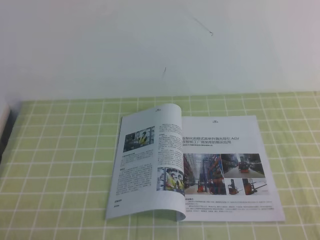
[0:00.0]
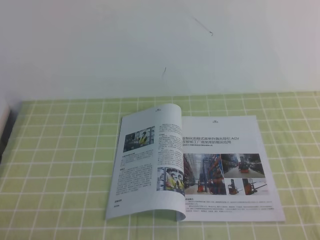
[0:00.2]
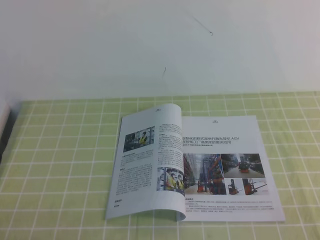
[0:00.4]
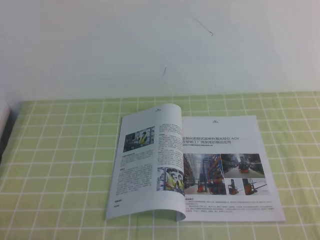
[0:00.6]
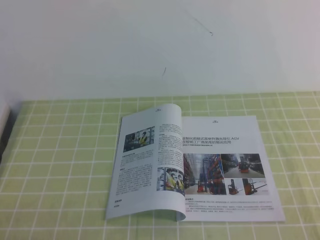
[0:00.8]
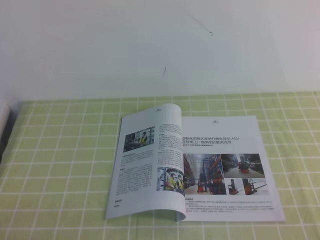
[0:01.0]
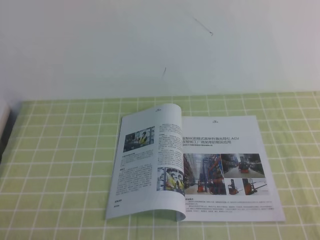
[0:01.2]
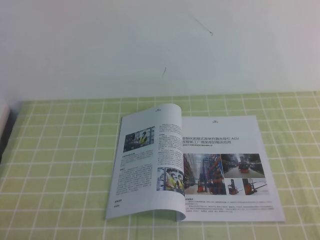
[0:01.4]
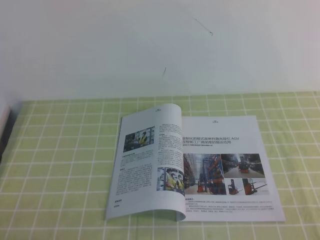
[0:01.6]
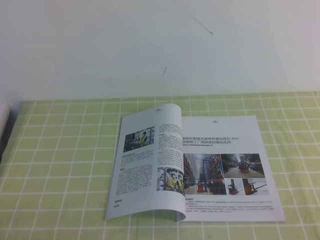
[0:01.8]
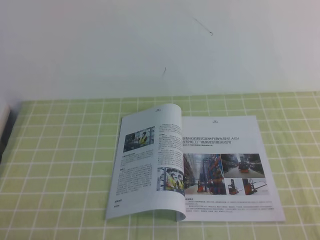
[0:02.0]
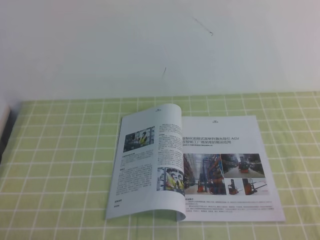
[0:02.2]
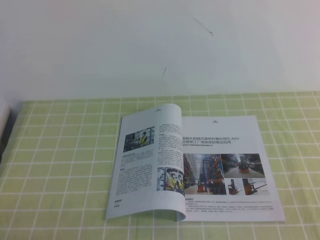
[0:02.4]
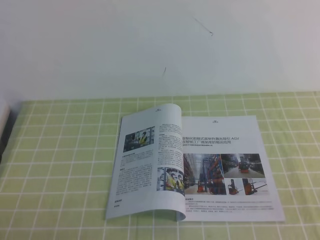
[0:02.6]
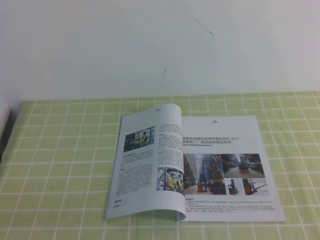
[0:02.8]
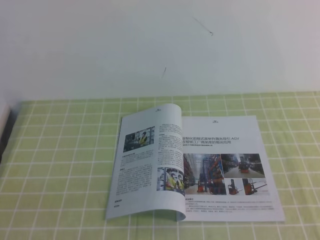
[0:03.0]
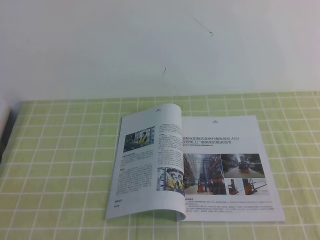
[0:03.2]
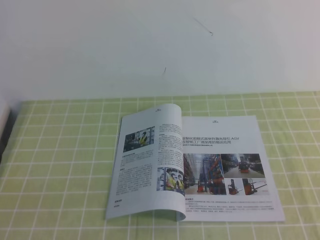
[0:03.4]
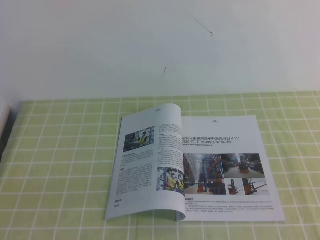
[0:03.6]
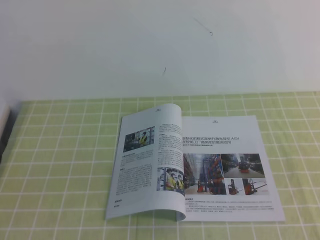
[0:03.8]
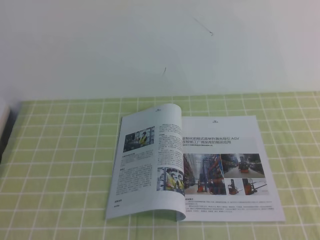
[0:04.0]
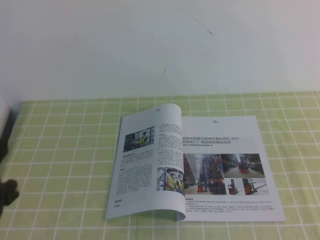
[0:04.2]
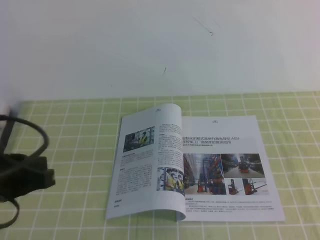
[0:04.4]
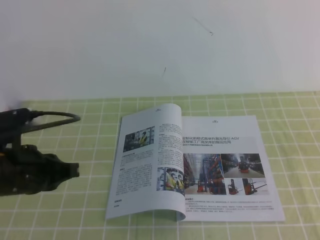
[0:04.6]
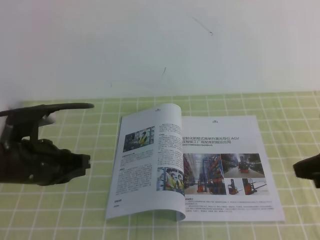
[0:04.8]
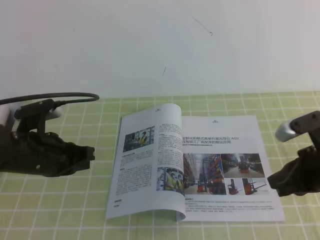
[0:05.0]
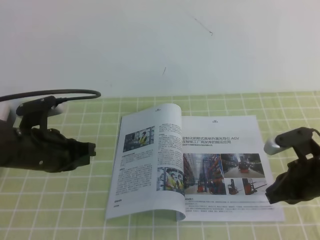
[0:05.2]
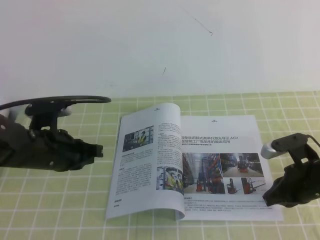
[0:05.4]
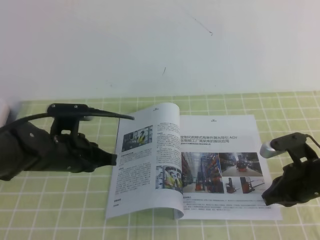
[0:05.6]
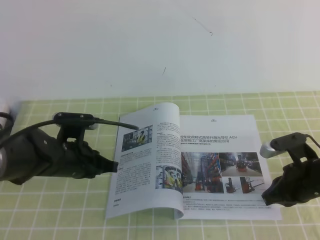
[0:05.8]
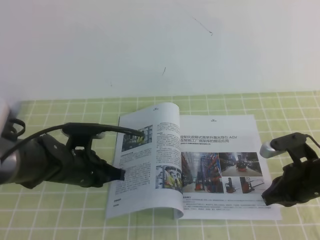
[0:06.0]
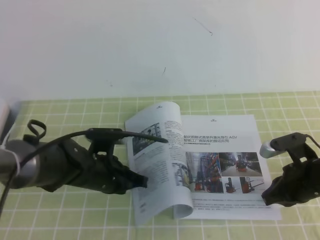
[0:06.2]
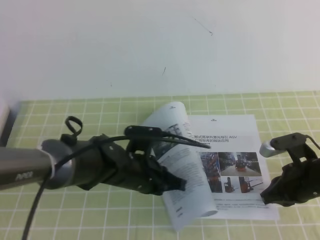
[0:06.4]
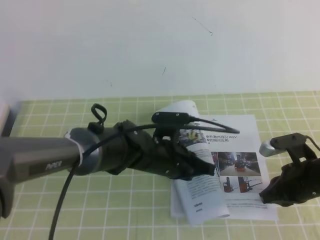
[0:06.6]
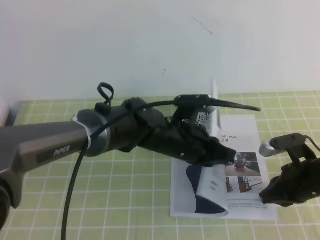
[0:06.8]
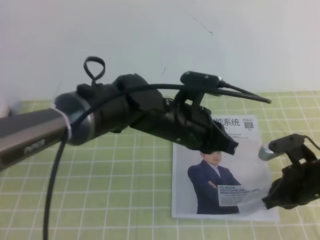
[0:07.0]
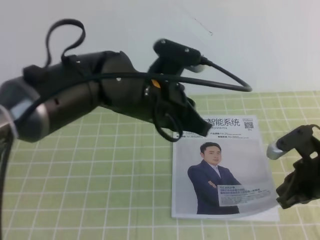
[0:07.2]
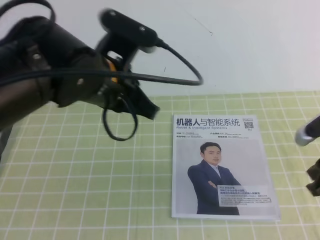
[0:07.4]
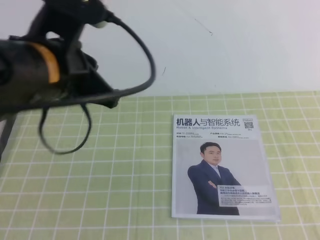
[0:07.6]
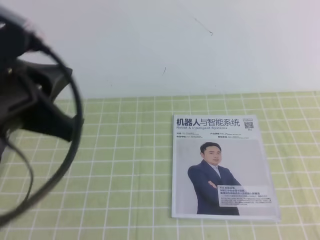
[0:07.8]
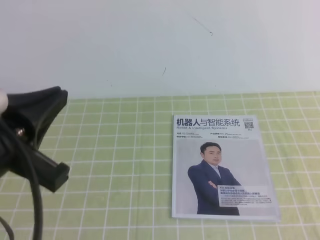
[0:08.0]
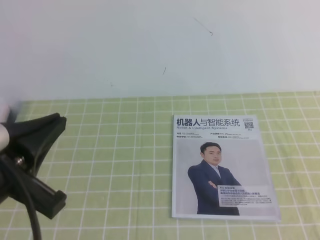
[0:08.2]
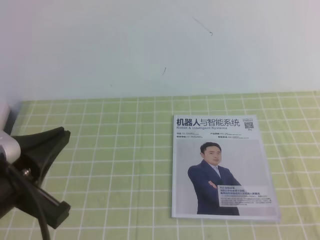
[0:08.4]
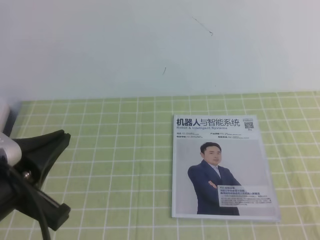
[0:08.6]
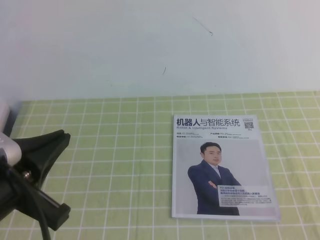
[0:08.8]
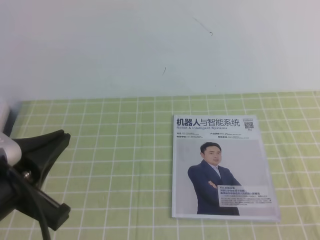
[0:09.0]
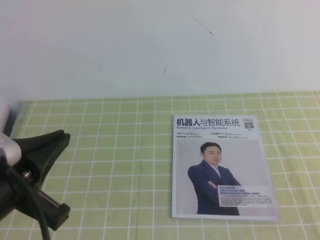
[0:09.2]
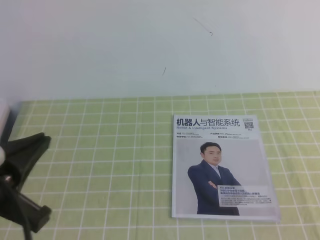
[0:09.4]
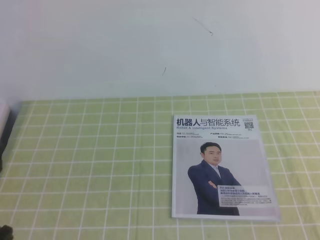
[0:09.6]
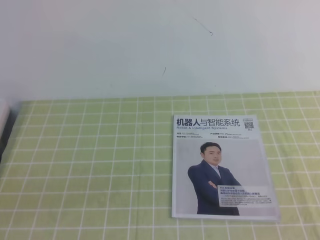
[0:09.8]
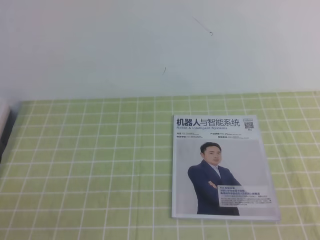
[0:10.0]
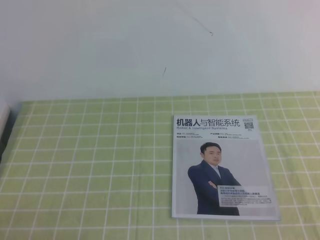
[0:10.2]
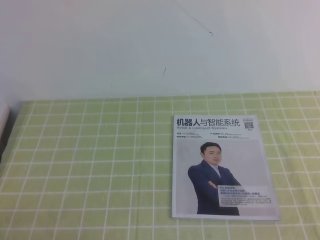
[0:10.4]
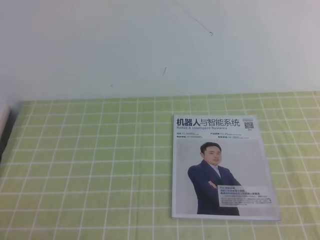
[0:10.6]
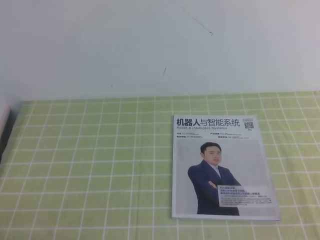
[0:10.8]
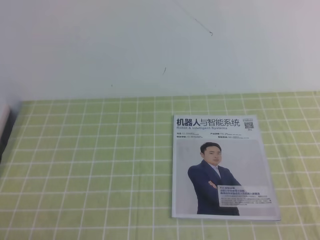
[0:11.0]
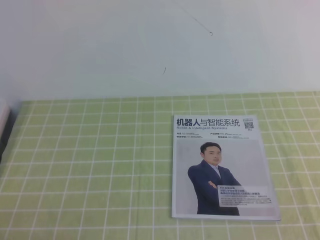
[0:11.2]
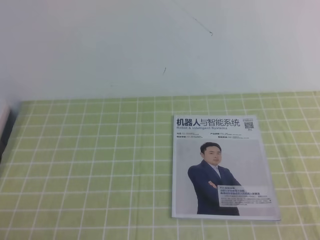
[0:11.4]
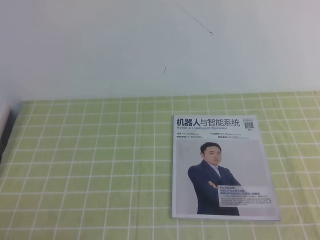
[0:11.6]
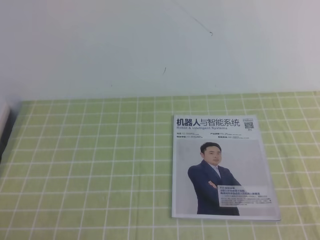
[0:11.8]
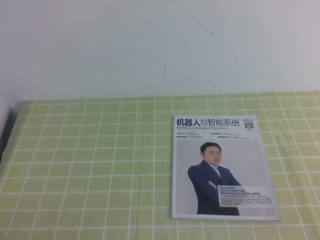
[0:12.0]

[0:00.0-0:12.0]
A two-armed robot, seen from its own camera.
Task of the whole recording: on the green tablecloth, hold the book with one hand and close it with the other.
0:00.0 to 0:01.6: Neither gripper changes place.
0:03.0 to 0:04.4: The left gripper goes roughly 15 cm forward and upward.
0:04.4 to 0:06.0: The left gripper shifts some 20 cm downward, forward and to the right; the right gripper heads downward and forward, covering about 25 cm.
0:06.0 to 0:07.6: The left gripper heads upward, covering about 25 cm; the right gripper heads upward and to the right, covering some 15 cm.
0:07.6 to 0:09.0: The right gripper travels backward by about 20 cm, while the left gripper moves backward, to the left and downward, about 15 cm.
0:09.0 to 0:10.4: The left gripper travels downward, to the left and backward by some 20 cm.

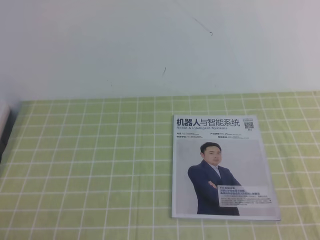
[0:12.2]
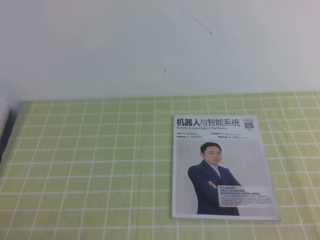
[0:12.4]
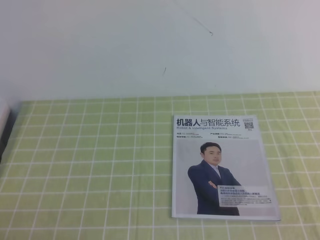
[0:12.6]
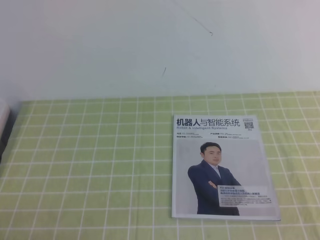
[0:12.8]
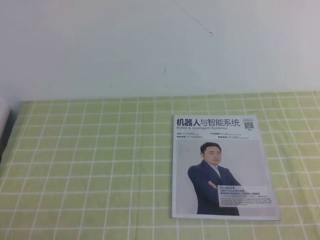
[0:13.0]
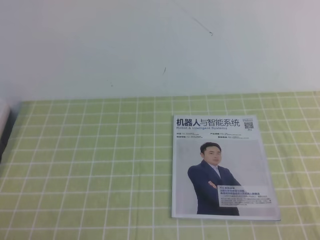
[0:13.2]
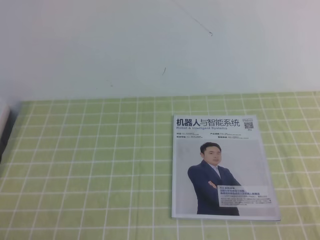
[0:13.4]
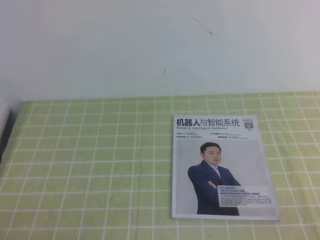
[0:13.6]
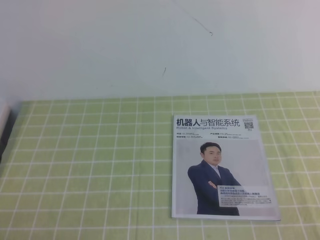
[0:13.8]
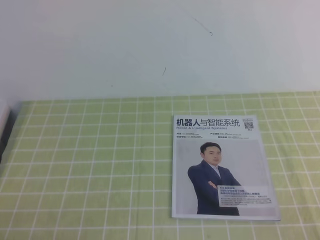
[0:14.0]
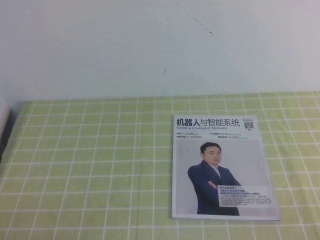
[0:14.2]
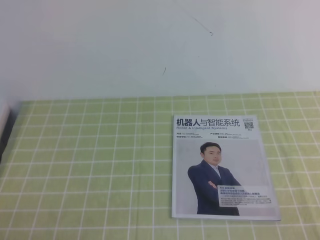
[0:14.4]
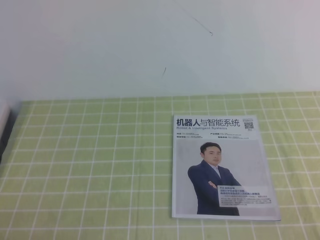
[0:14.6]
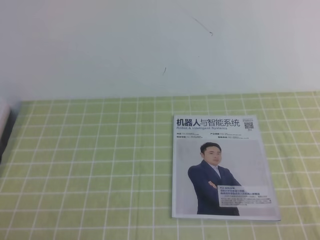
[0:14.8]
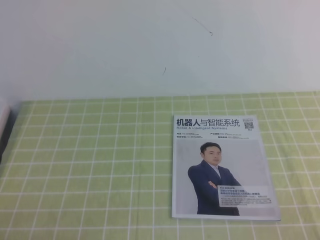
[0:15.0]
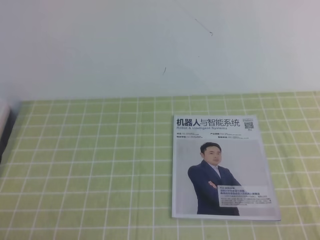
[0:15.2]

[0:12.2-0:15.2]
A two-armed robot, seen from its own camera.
Task of the whole recording: on the green tablecloth, hold the book with one hand and close it with the other.
0:13.8 to 0:15.2: Neither gripper changes place.
